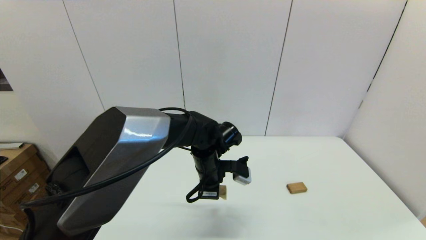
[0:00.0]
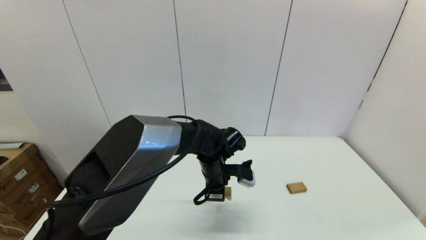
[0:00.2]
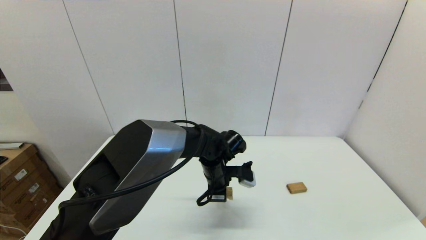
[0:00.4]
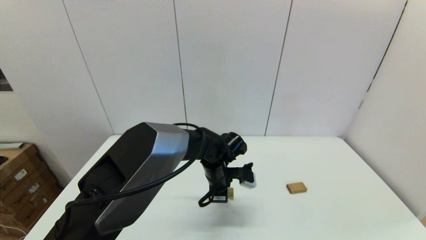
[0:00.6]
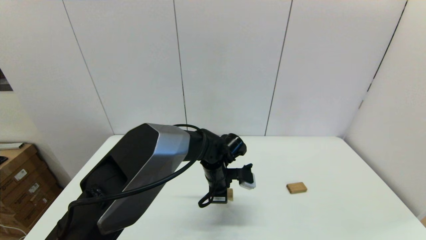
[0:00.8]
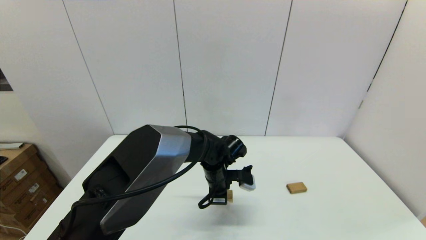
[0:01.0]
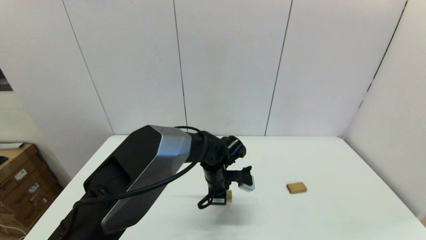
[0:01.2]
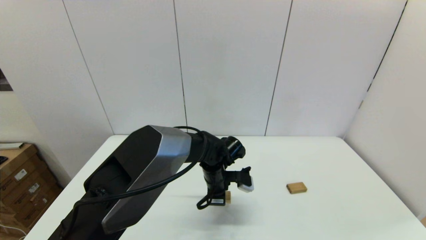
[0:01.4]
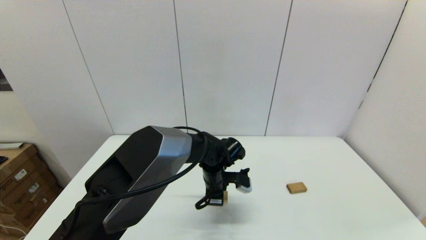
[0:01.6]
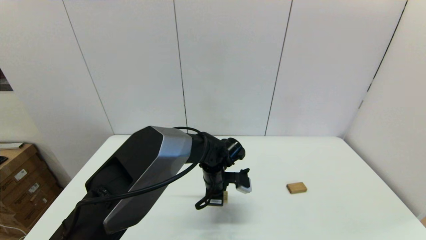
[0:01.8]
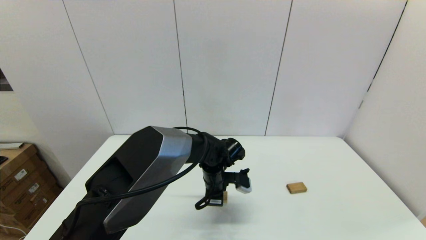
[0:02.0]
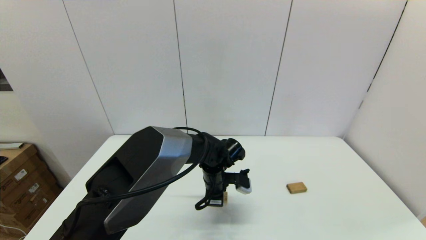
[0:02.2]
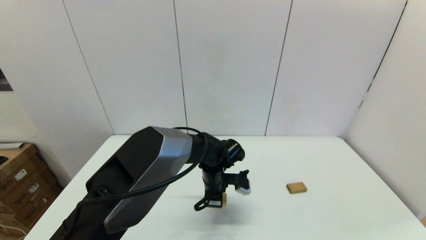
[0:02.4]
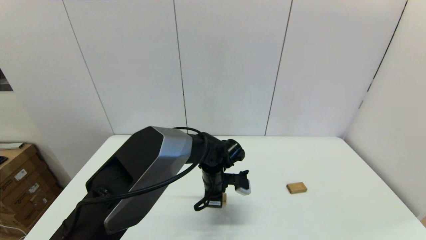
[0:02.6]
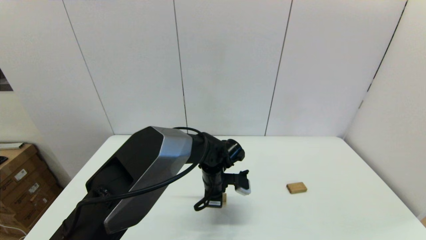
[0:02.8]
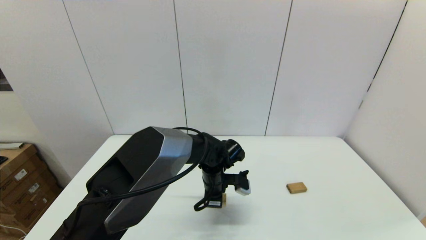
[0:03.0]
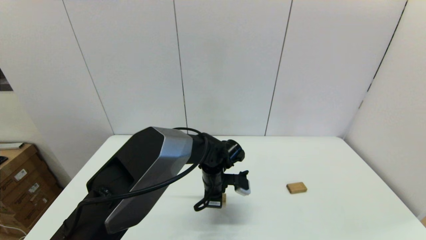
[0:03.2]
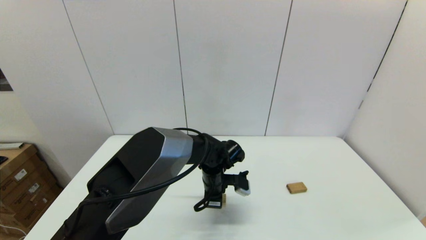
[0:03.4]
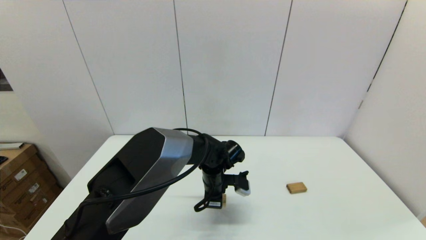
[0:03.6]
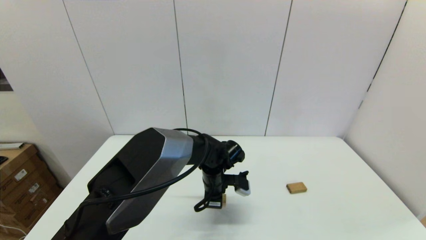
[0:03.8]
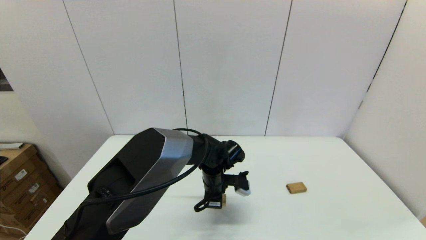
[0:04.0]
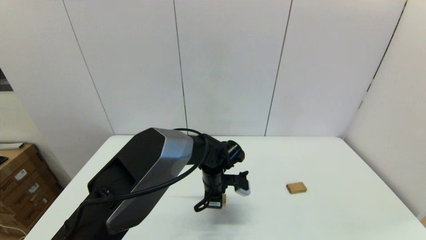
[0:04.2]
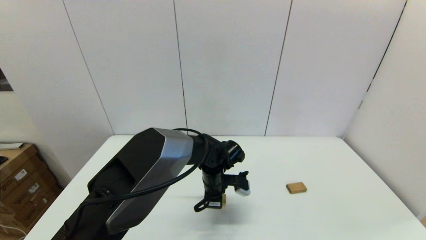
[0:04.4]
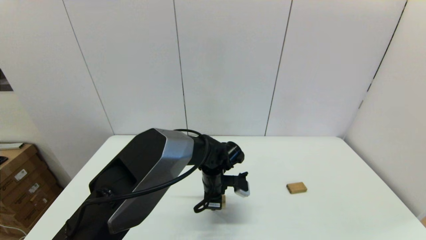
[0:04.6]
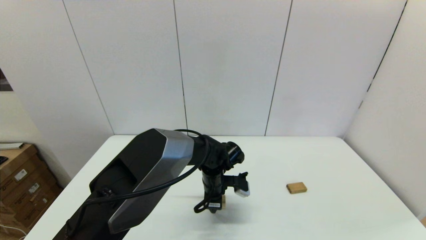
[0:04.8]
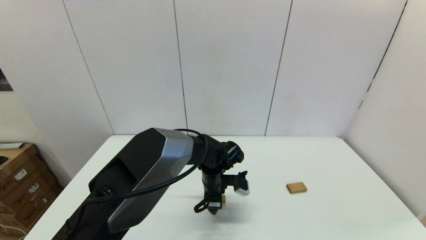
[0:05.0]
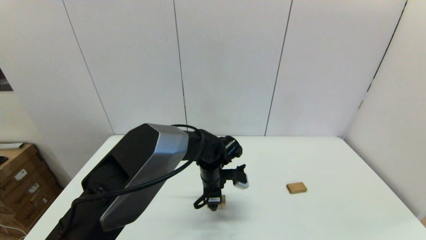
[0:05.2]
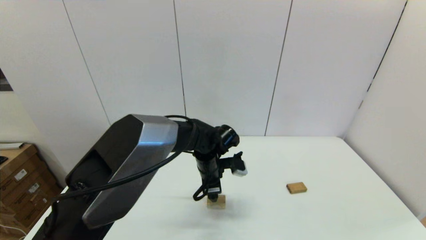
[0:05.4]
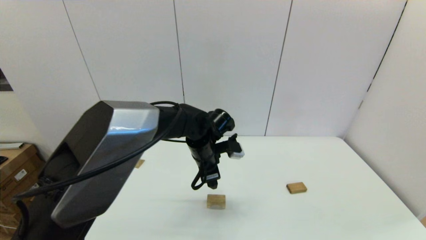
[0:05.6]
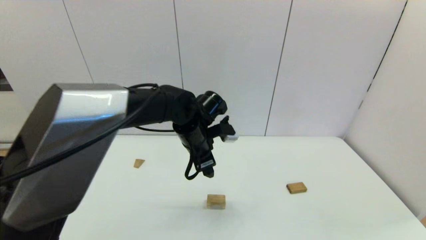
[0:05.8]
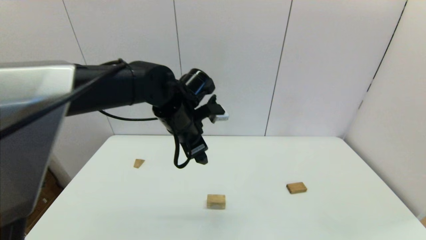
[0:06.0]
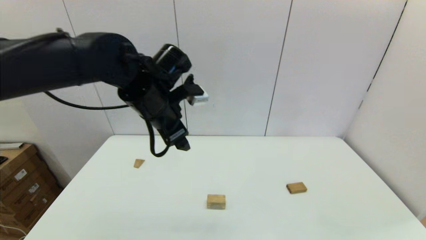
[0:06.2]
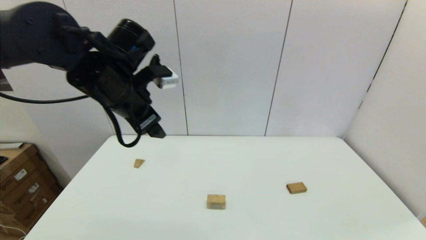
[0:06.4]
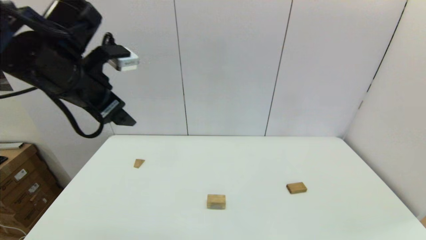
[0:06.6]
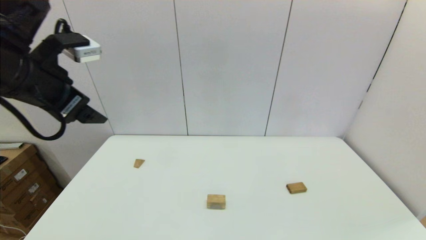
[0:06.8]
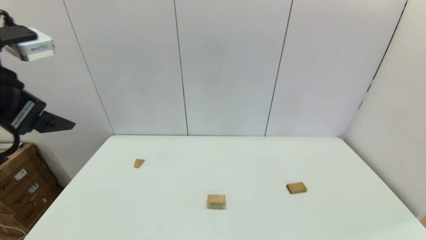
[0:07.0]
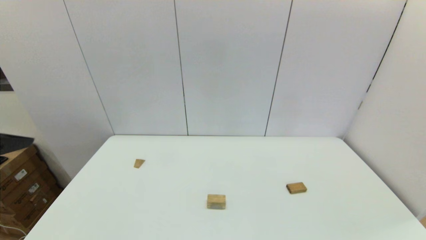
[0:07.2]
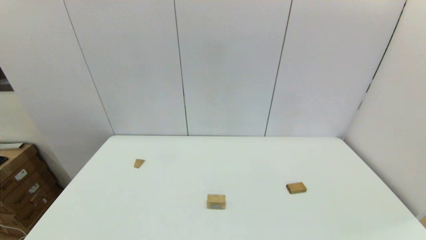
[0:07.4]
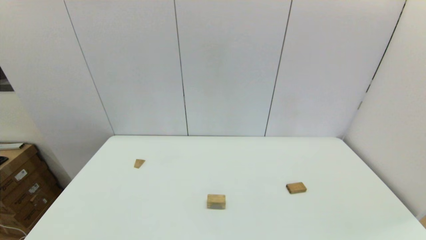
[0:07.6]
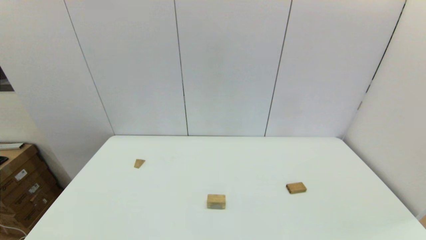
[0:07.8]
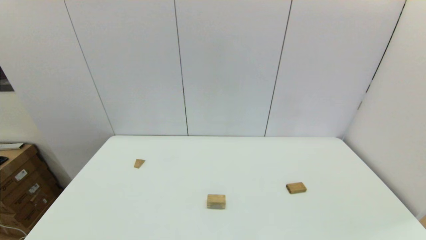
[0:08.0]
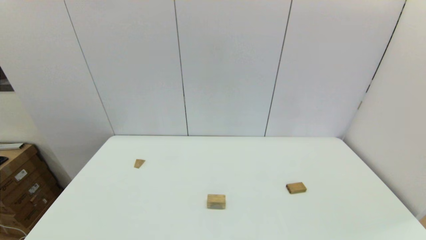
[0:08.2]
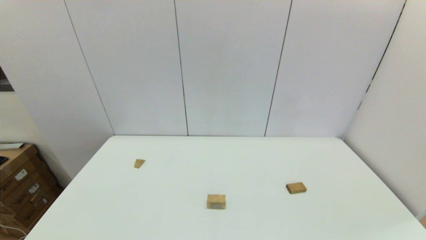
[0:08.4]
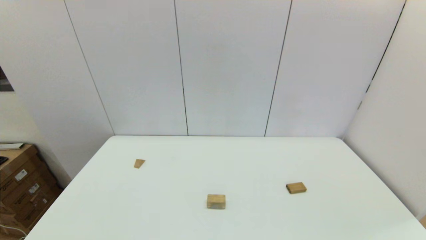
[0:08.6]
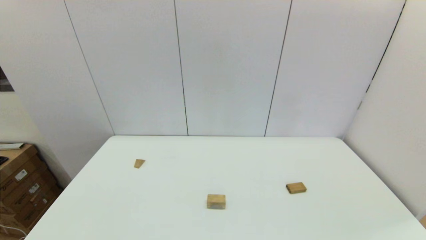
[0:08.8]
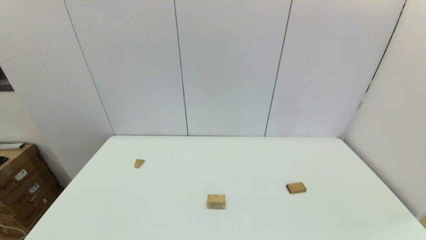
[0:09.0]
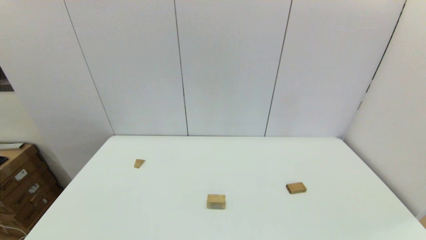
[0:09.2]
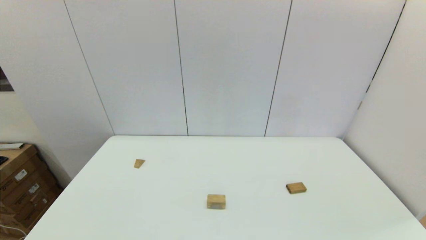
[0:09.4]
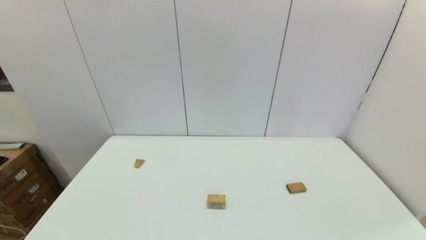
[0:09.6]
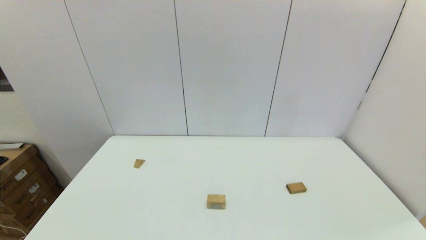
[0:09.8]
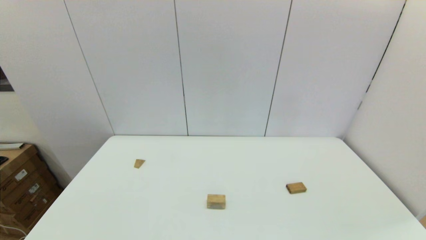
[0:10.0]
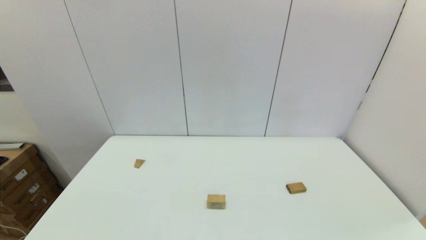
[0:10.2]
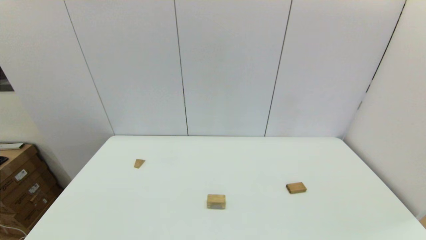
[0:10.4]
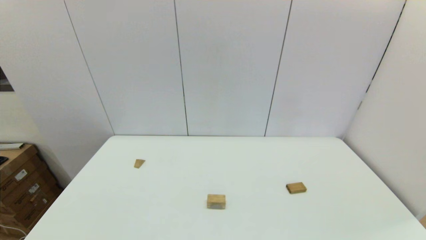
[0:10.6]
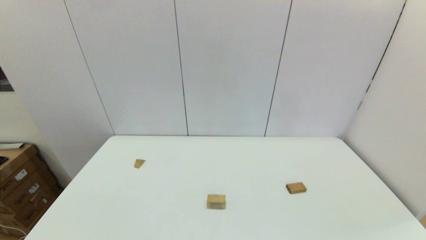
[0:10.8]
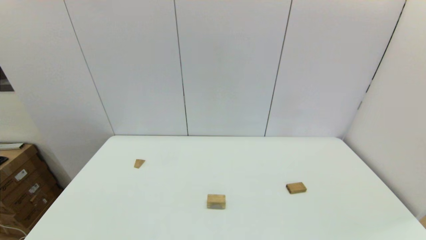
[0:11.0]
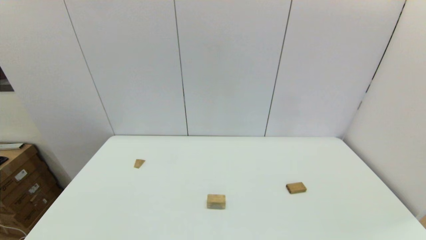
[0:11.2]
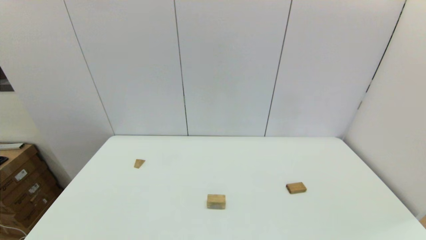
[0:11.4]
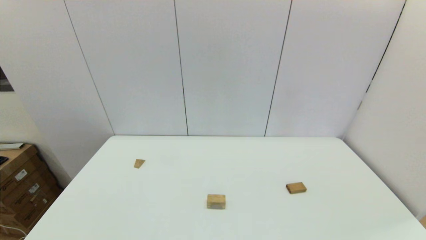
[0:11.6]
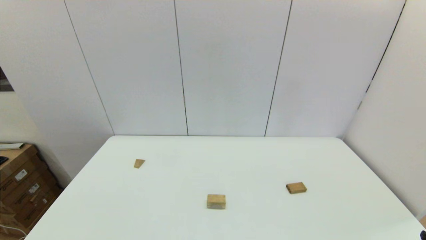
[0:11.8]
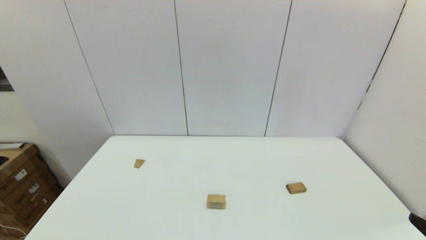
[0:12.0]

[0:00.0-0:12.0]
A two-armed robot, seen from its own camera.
Task of the whole recording: place the arched building blocks in the center of the table, set up the rectangular building blocks, and then set up the triangular building blocks.
Step, 0:00.0 to 0:04.6: Place the arch-shaped block in the center of view with the left gripper.
0:00.0 to 0:01.6: The left gripper goes about 5 cm downward.
0:01.6 to 0:04.4: Neither gripper changes place.
0:04.4 to 0:06.0: The left gripper shifts roughly 20 cm upward, and opens up.
0:06.0 to 0:07.6: The left gripper moves backward and to the left, roughly 40 cm.

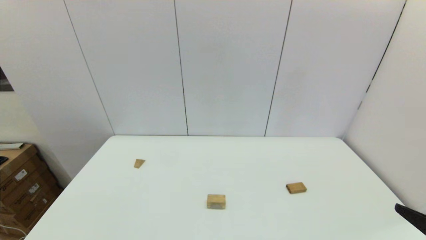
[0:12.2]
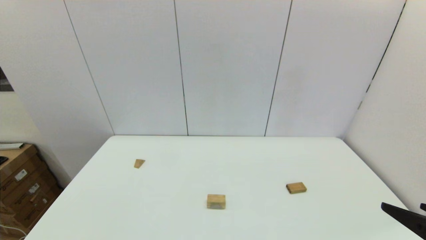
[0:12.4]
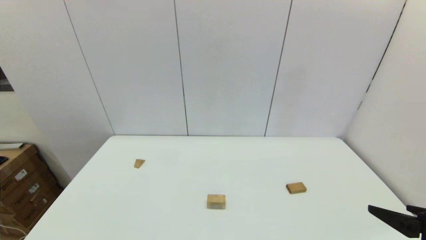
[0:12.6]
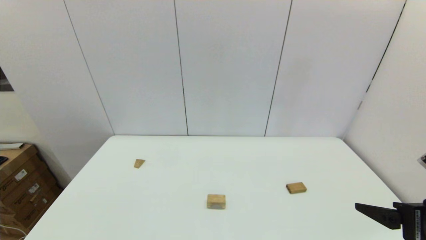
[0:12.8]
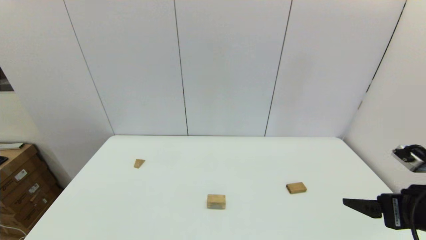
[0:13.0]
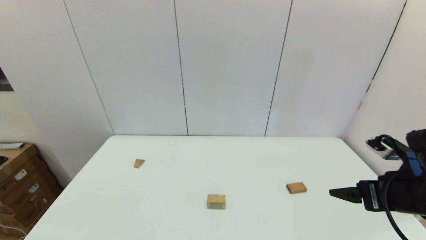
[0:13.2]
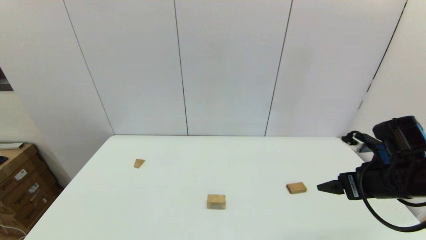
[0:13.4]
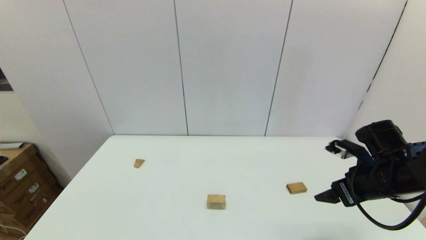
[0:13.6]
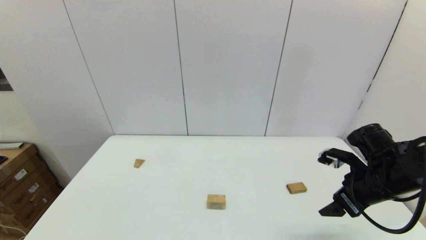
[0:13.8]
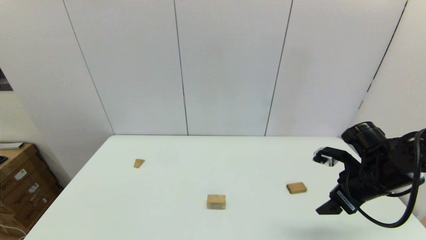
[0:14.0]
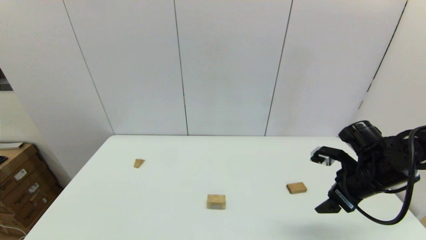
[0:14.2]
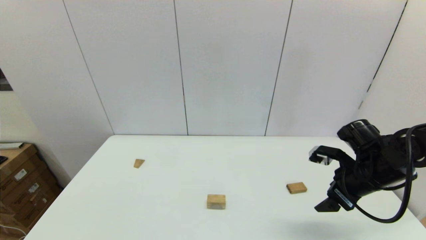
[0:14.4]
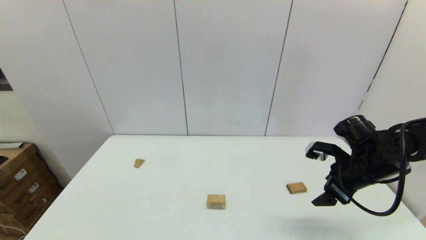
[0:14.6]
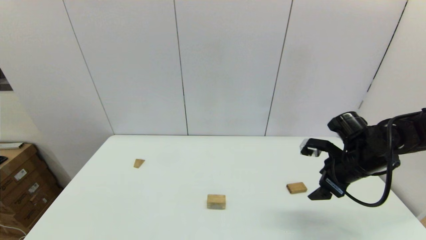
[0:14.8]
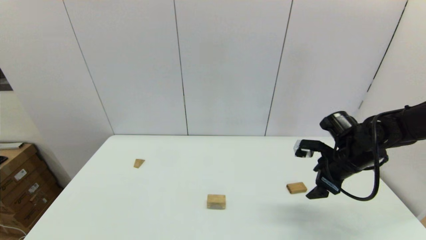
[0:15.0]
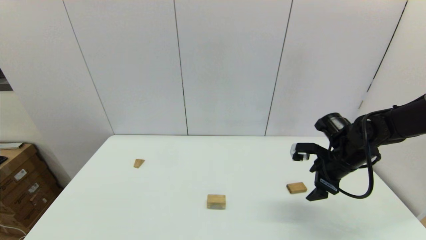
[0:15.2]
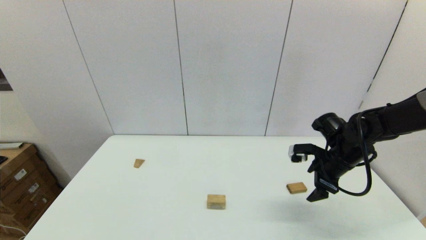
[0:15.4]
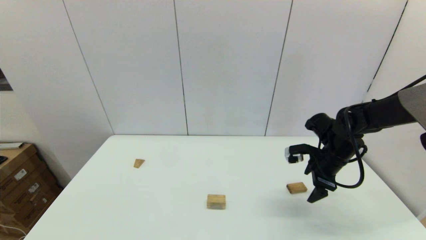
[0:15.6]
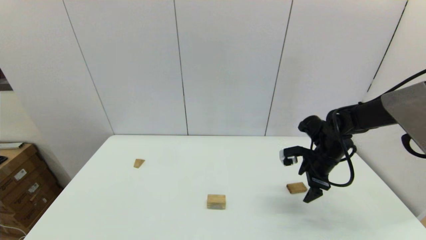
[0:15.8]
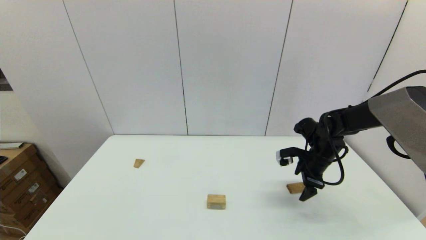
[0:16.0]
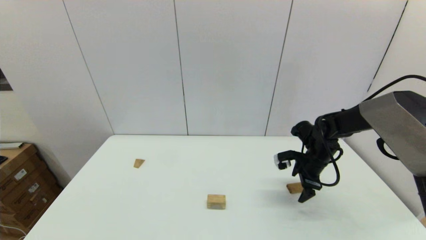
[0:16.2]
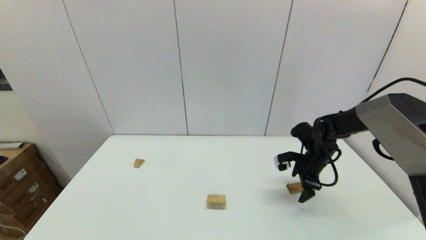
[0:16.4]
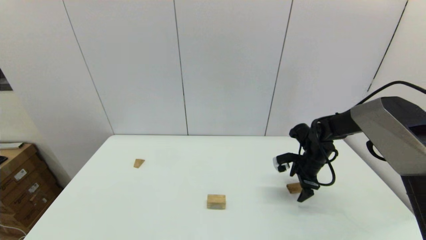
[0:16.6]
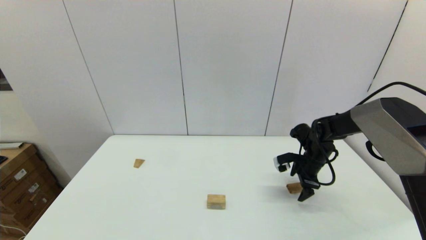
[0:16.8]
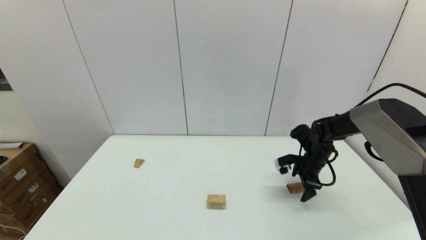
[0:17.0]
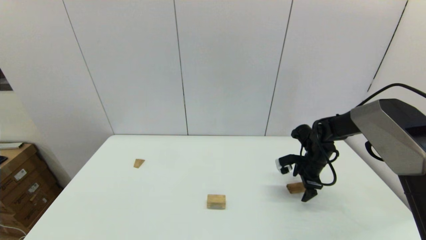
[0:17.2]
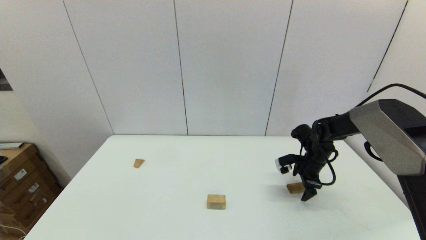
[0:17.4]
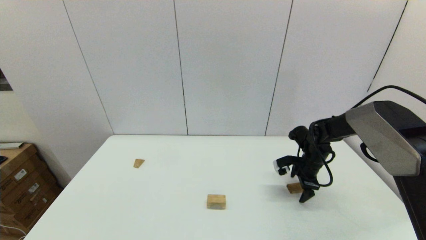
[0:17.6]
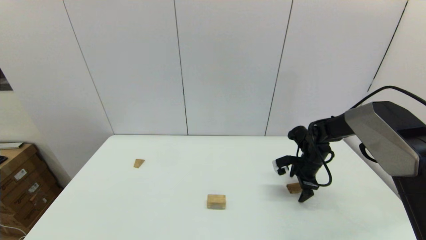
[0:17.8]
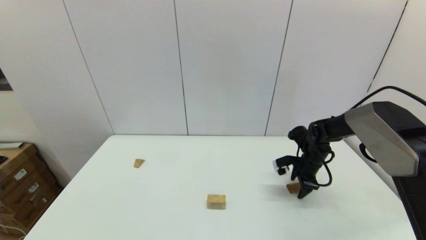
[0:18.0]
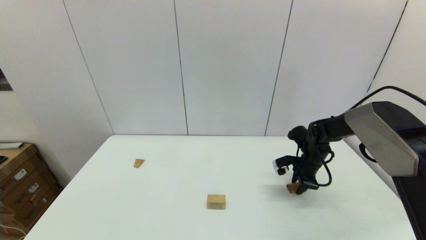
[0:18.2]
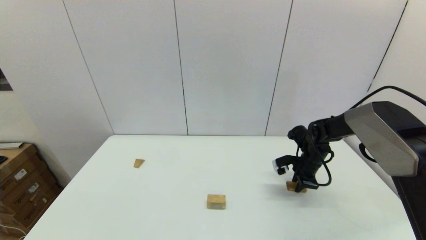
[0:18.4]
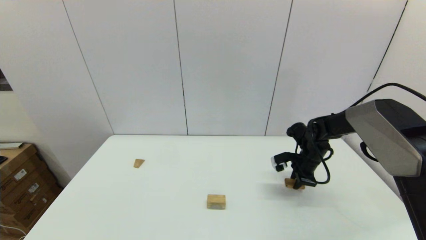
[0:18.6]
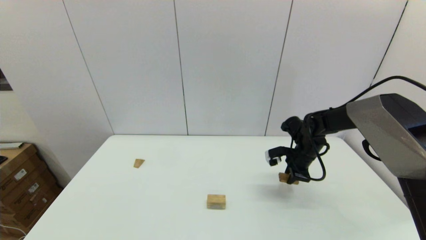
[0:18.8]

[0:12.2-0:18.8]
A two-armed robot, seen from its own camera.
Task of the whole recording: place the arched building blocks in the center of the table, set up the rectangular building blocks, and then set up the triangular building blocks.
Step, 0:12.2 to 0:18.2: Grasp the box-shaped block with the right gripper.
0:12.2 to 0:13.8: The right gripper shifts about 20 cm forward.
0:13.8 to 0:15.4: The right gripper heads forward, covering approximately 10 cm.
0:15.4 to 0:17.2: The right gripper heads downward and forward, covering about 10 cm.
0:17.2 to 0:18.8: The right gripper moves approximately 5 cm, and closes.
